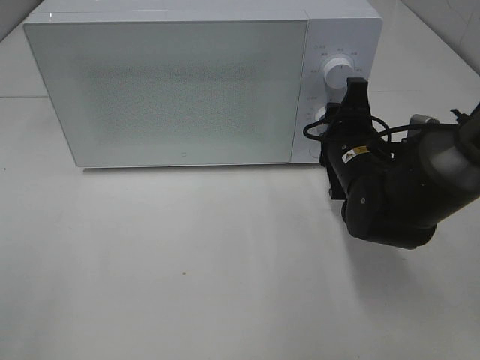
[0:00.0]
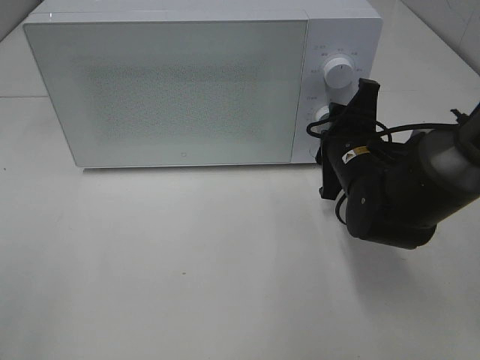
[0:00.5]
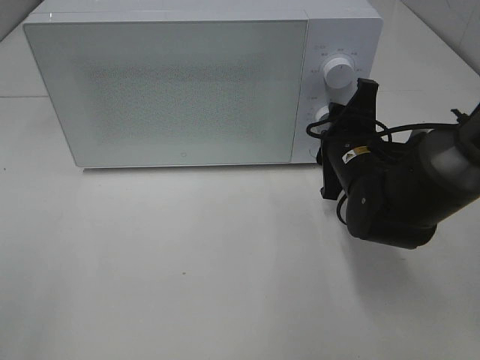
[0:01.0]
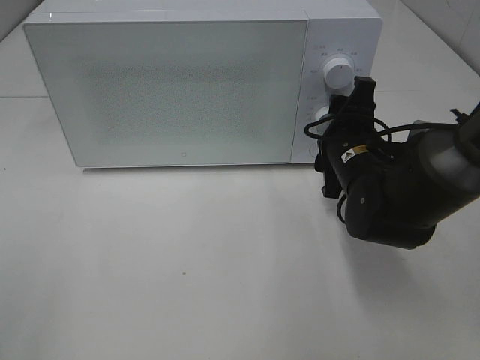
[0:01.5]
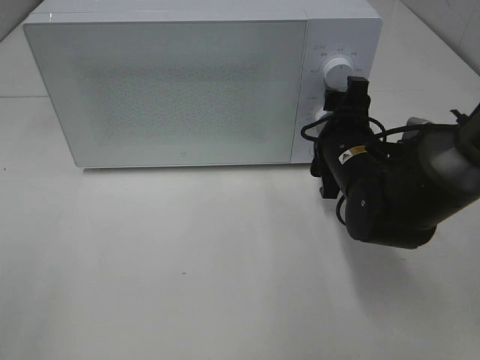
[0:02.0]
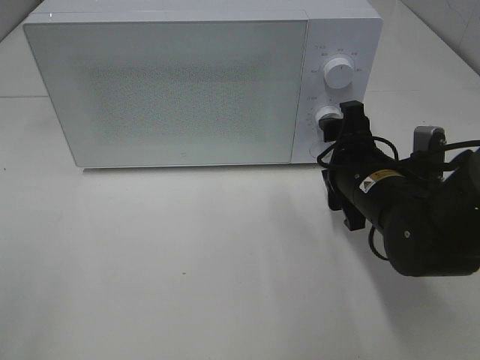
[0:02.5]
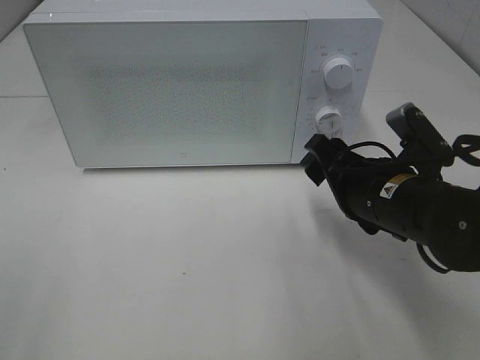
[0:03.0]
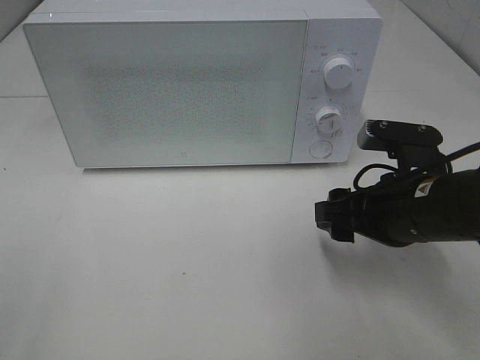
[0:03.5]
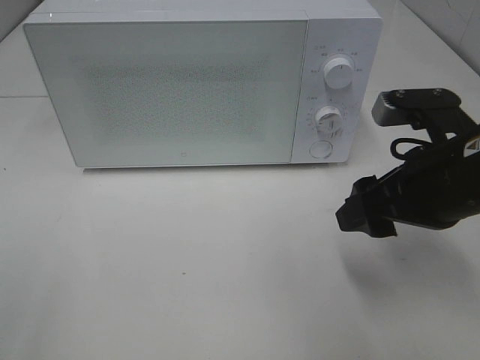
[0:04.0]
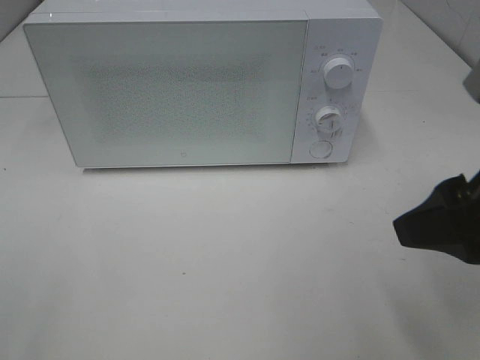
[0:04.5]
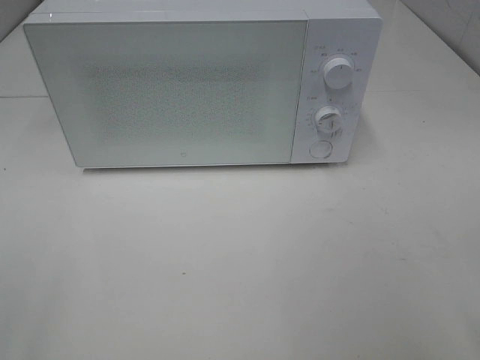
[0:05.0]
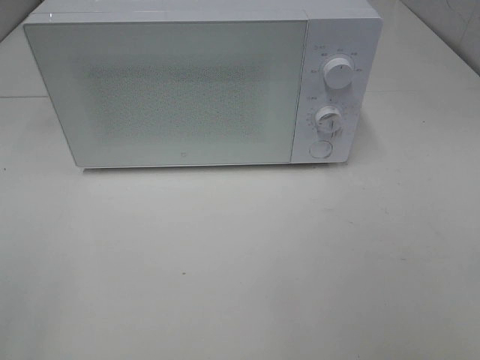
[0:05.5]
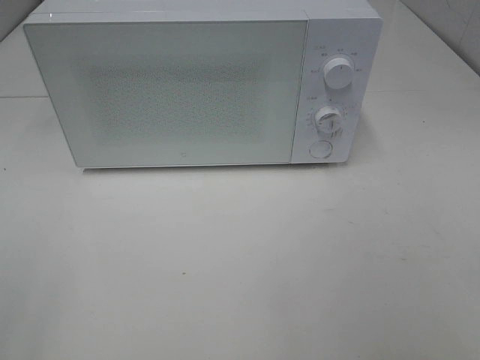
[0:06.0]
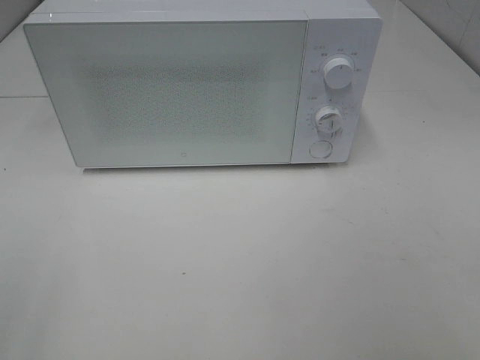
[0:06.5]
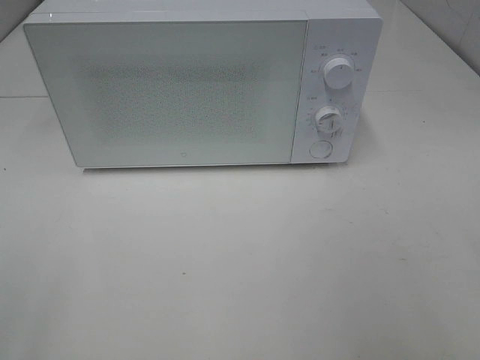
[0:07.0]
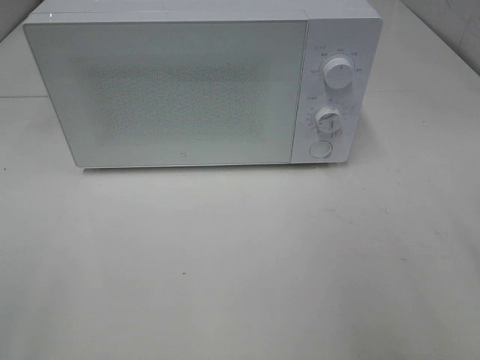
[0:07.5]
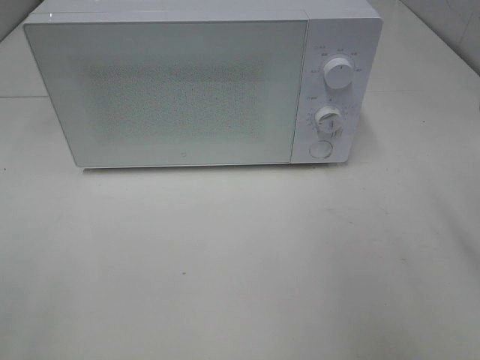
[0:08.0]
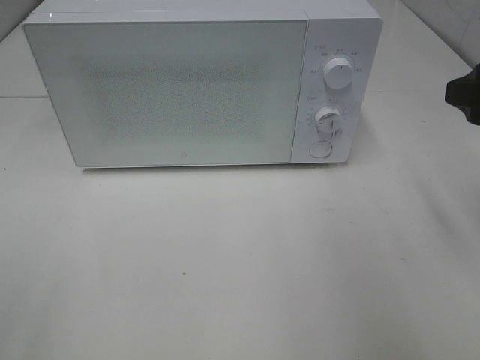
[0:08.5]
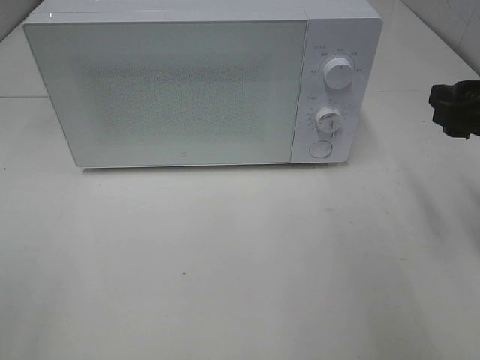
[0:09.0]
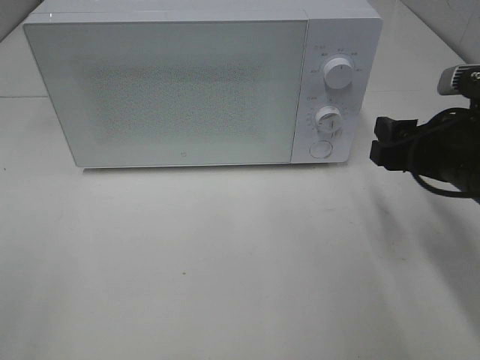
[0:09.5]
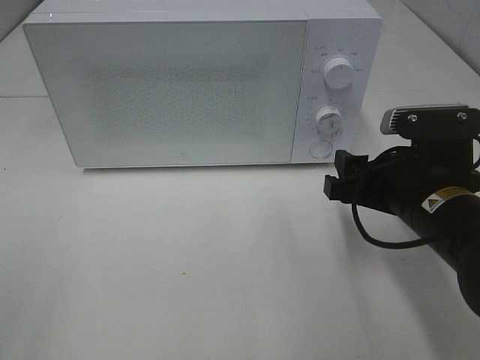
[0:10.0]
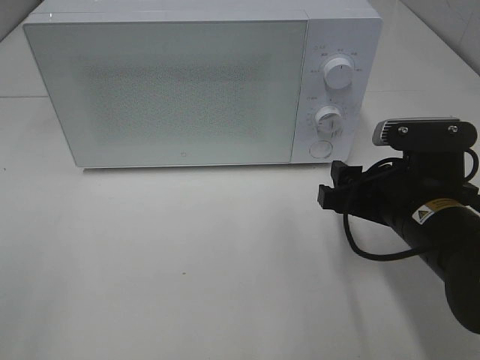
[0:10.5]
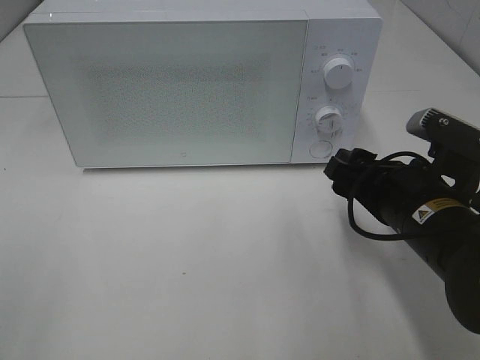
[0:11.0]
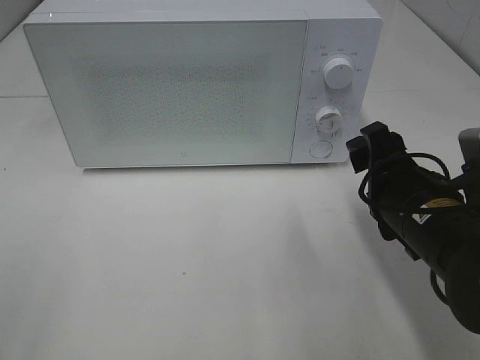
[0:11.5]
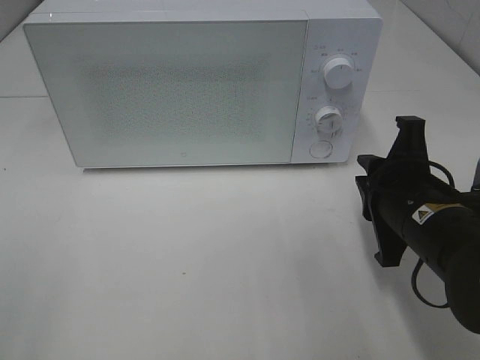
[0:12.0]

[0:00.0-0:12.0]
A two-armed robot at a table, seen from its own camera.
Task of the whole recording: Heat Sandwich.
Step, 0:00.0 to 0:02.0: Right hand: twist timer button.
0:00.0 to 0:02.0: The right gripper opens.
0:02.0 to 0:04.0: The right gripper travels backward, upward and to the right by roughly 15 cm.
0:04.0 to 0:06.0: The right gripper is displaced backward and to the right by some 25 cm.
0:08.0 to 0:10.0: The right gripper is displaced downward and to the left by roughly 15 cm.
0:10.0 to 0:12.0: The right gripper closes up.

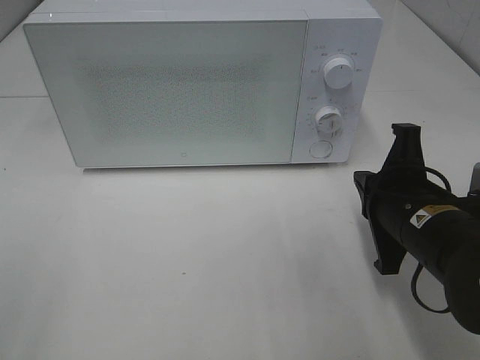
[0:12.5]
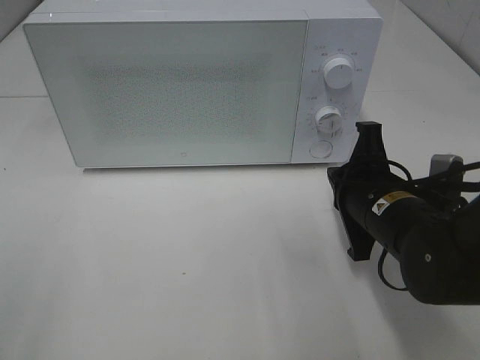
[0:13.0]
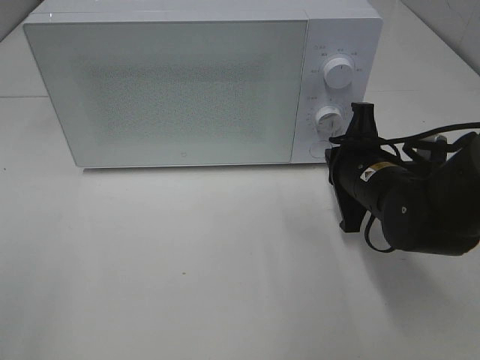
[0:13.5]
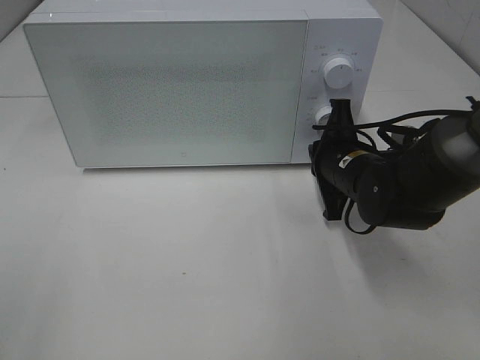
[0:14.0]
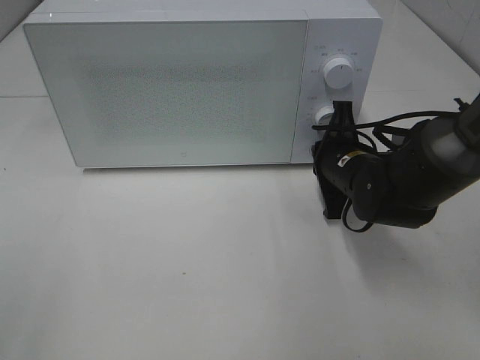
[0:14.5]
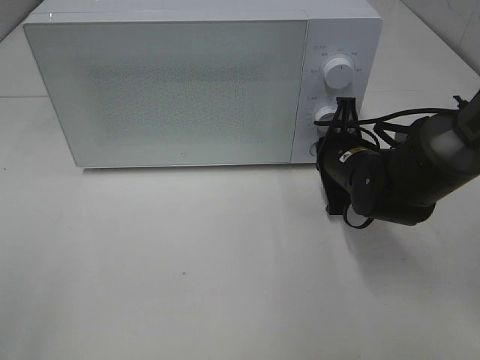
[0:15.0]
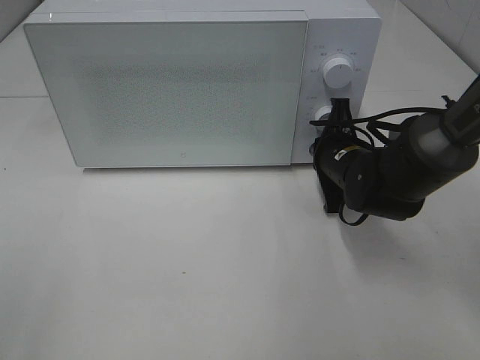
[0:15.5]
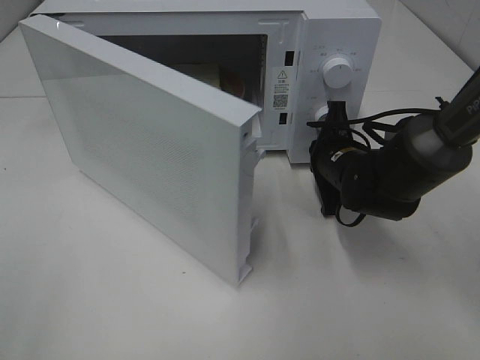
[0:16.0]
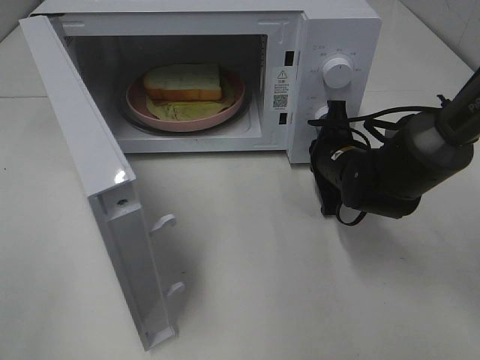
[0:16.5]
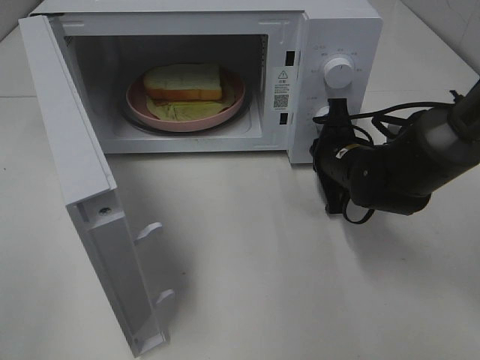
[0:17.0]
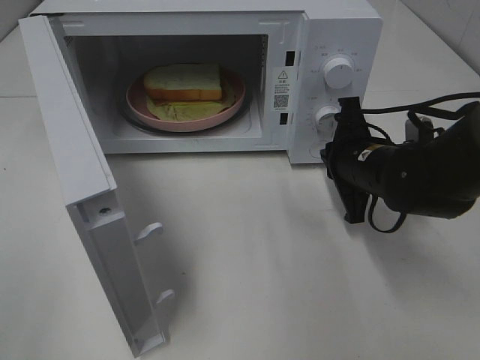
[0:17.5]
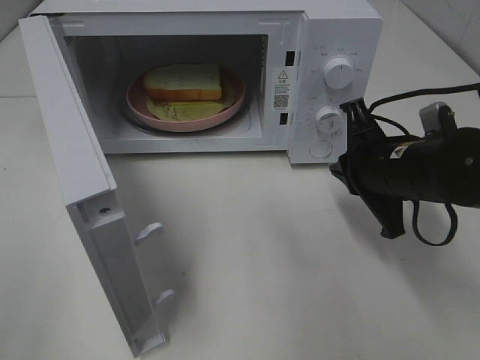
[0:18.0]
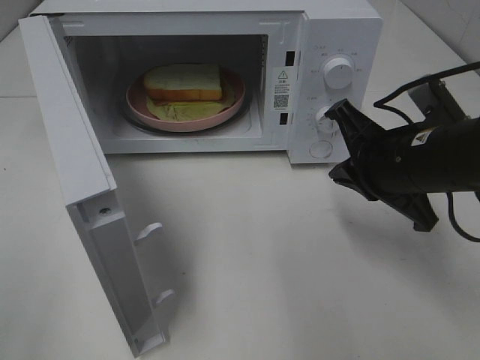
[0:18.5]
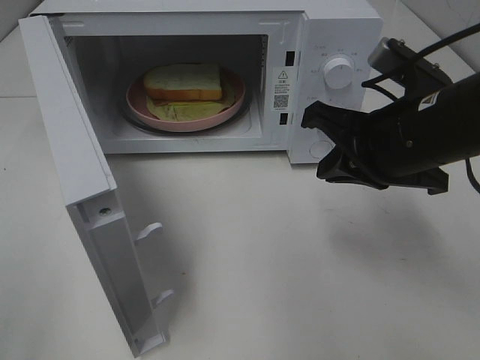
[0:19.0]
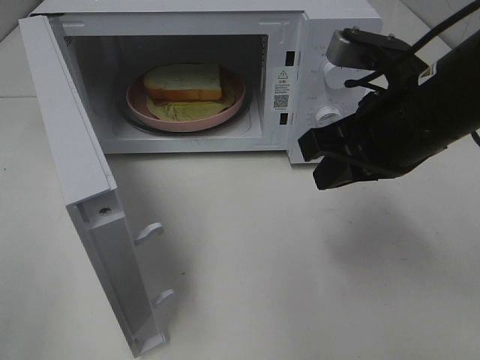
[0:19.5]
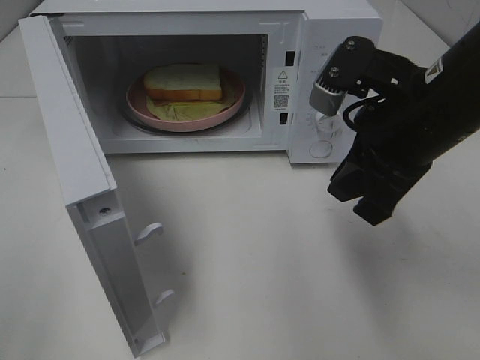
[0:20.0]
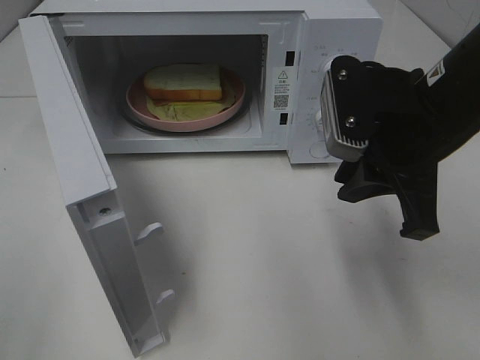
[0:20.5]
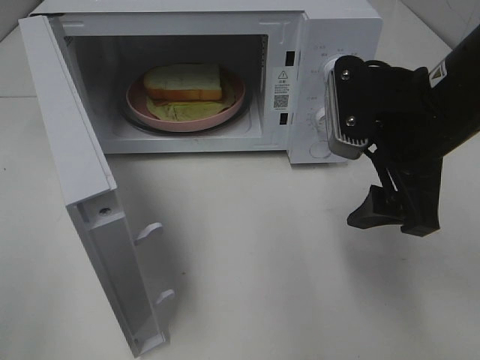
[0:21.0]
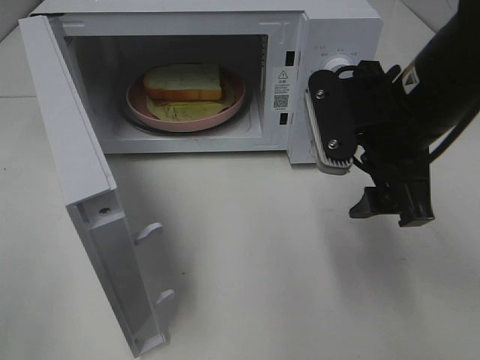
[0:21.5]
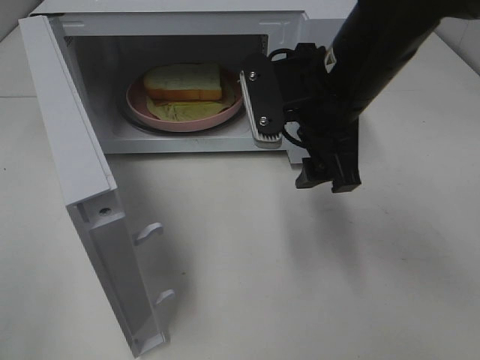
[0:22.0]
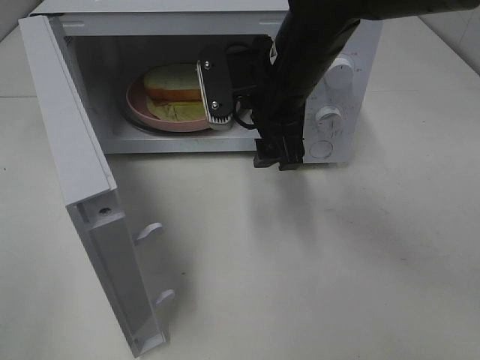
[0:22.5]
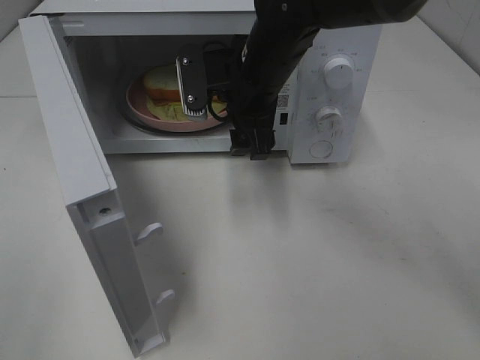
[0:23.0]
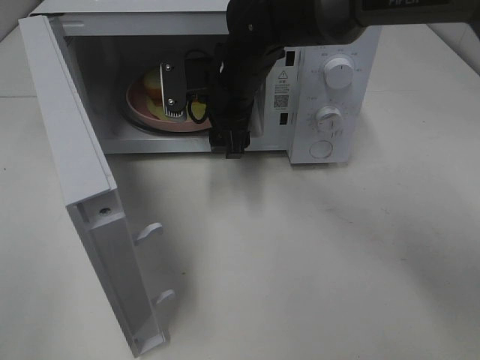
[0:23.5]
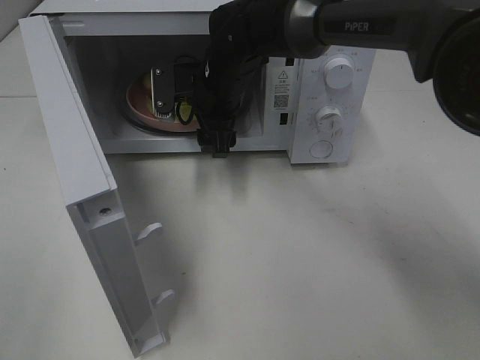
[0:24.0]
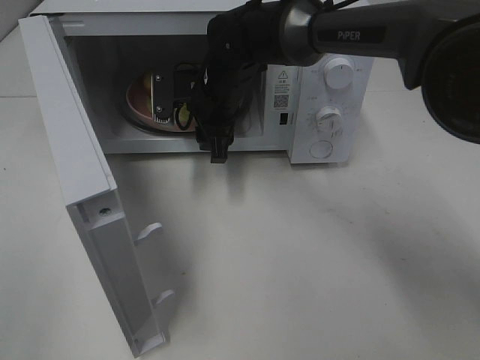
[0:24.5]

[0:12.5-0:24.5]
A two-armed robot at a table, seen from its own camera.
Task of the whole recording: Heat Sandwich.
Step, 0:12.5 to 0:17.5: Right hand: press the switch.
0:12.5 to 0:14.5: The right gripper is displaced forward by roughly 10 cm.
0:16.5 to 0:18.5: The right gripper goes approximately 15 cm backward and upward.
0:18.5 to 0:20.5: The right gripper goes approximately 5 cm upward.
0:20.5 to 0:22.5: The right gripper moves to the left and forward, approximately 15 cm, and opens up.
0:22.5 to 0:24.5: The right gripper goes about 15 cm forward, downward and to the left, and closes its fingers.

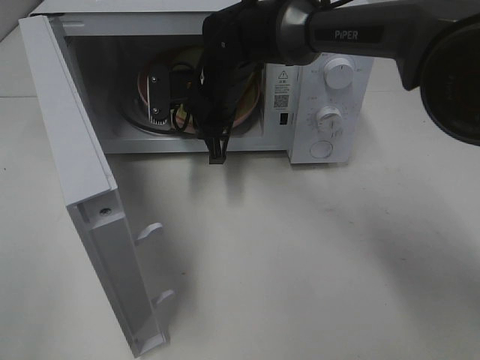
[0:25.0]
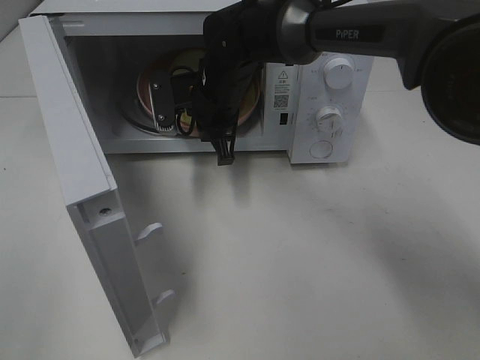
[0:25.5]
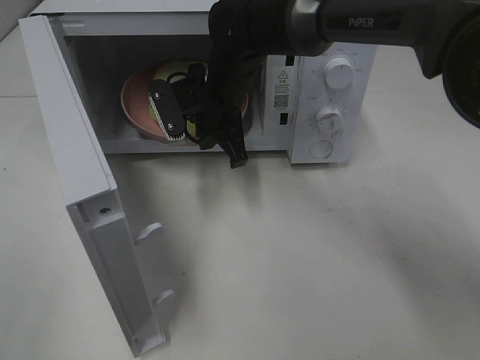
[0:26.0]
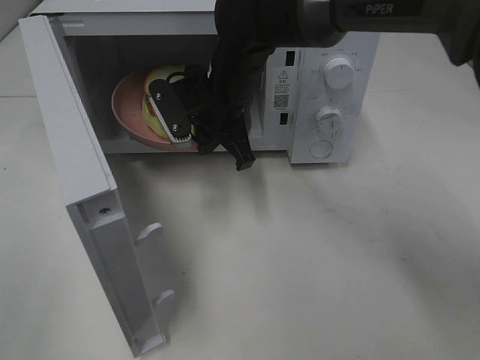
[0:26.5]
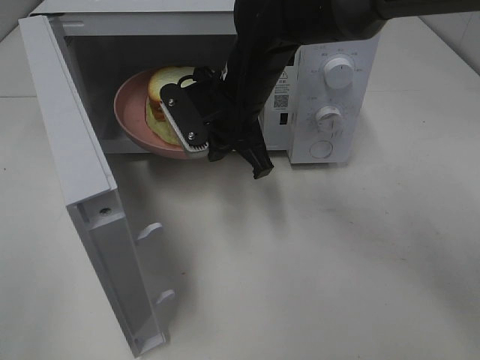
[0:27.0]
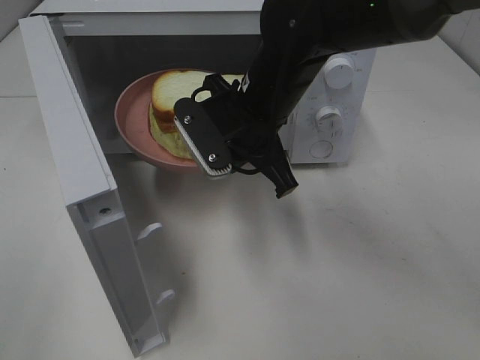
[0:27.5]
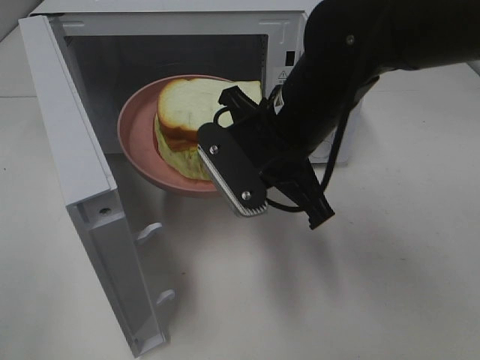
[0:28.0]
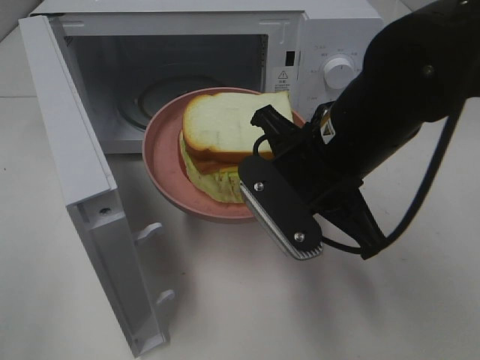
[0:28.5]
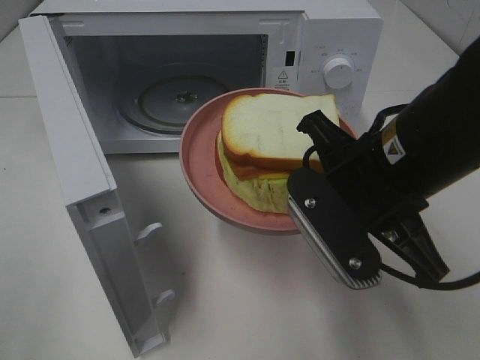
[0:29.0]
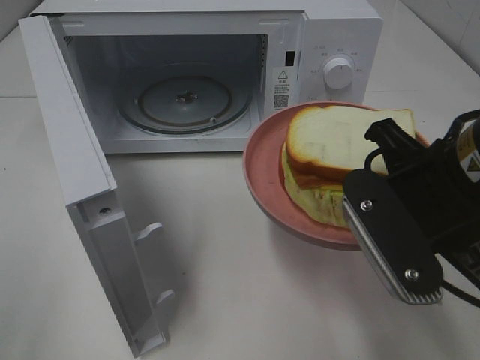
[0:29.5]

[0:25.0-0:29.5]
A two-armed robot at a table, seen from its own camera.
Task of the whole recording: Heat Sandwich.
0:25.0 to 0:27.0: The right gripper heads backward, covering approximately 5 cm.
0:27.0 to 0:29.5: The right gripper heads backward and to the right, covering approximately 25 cm.
